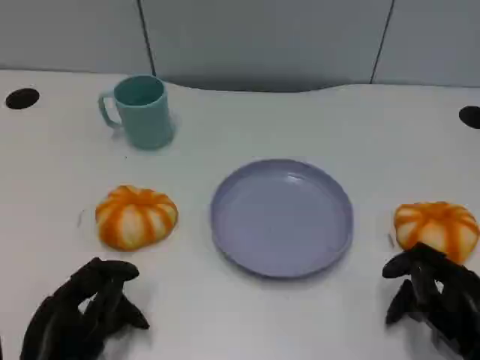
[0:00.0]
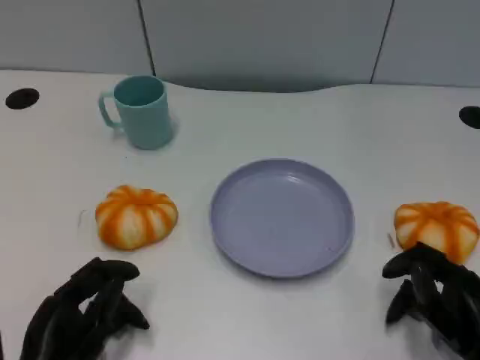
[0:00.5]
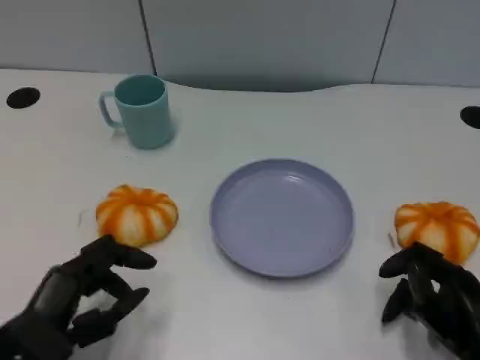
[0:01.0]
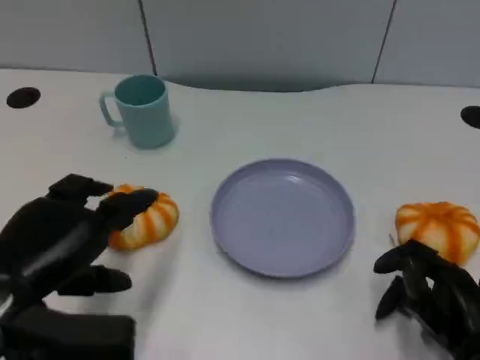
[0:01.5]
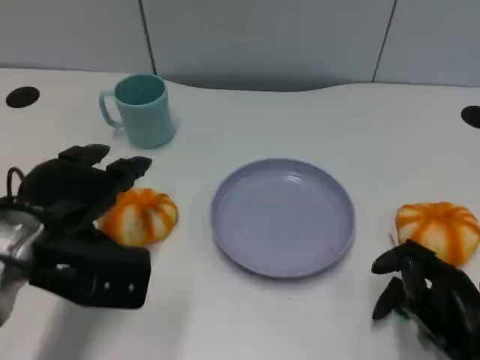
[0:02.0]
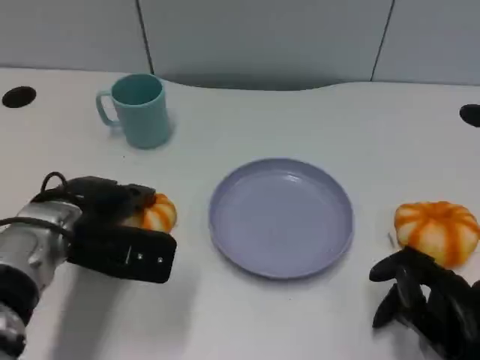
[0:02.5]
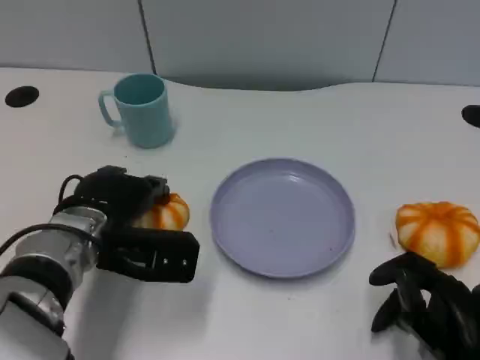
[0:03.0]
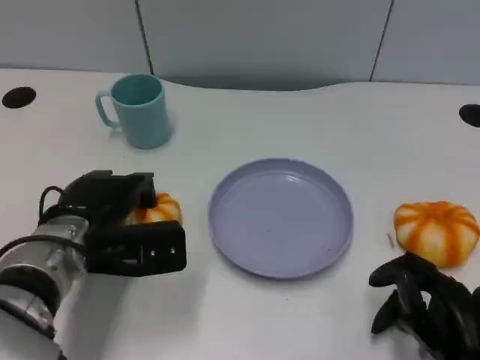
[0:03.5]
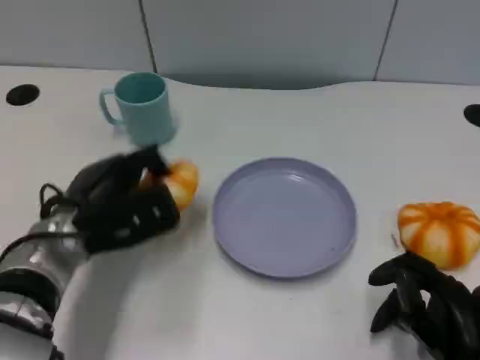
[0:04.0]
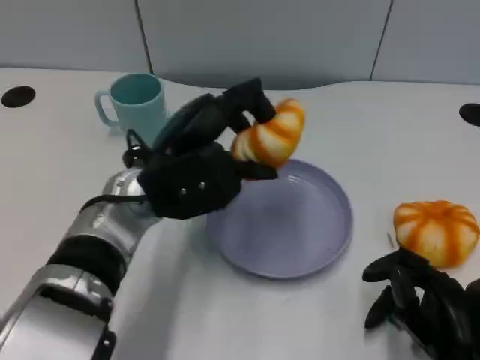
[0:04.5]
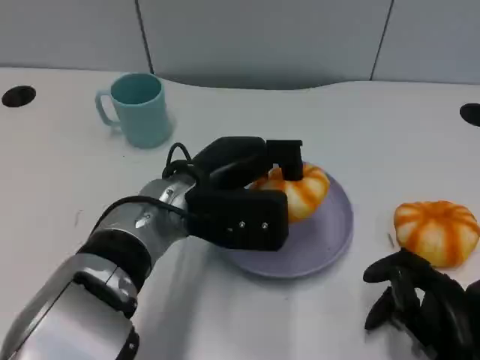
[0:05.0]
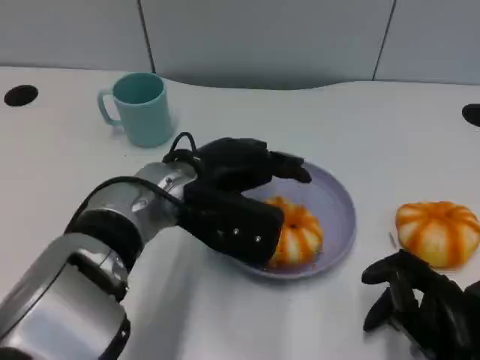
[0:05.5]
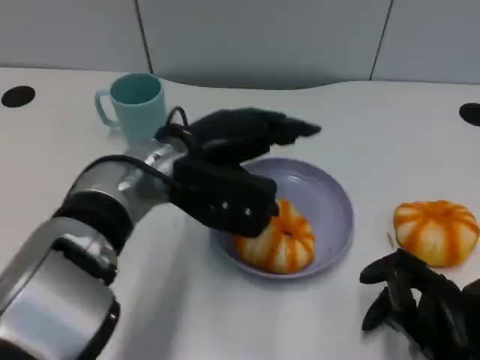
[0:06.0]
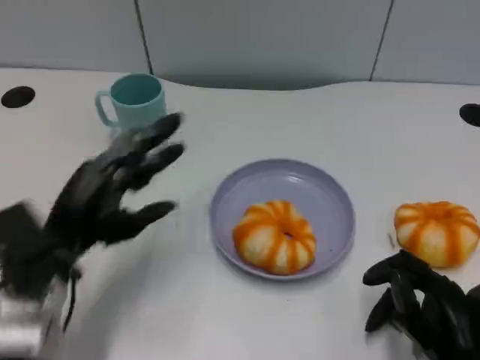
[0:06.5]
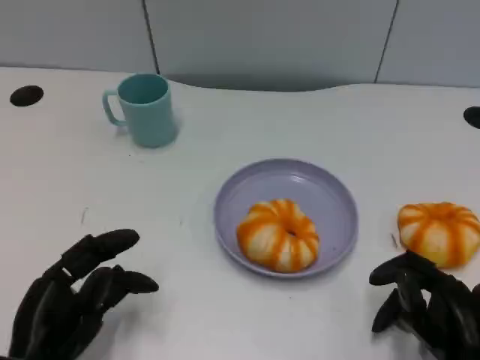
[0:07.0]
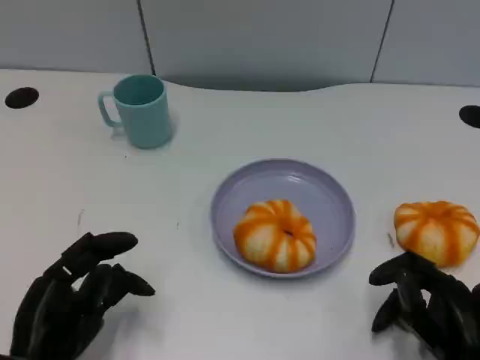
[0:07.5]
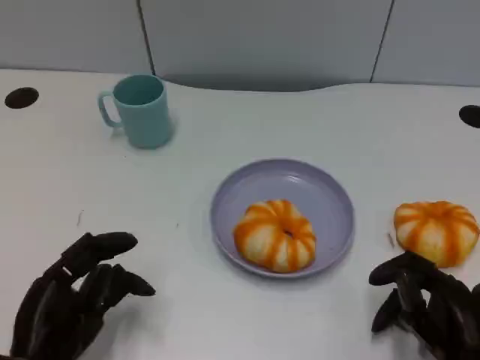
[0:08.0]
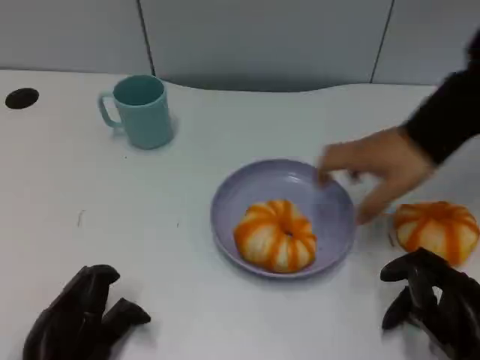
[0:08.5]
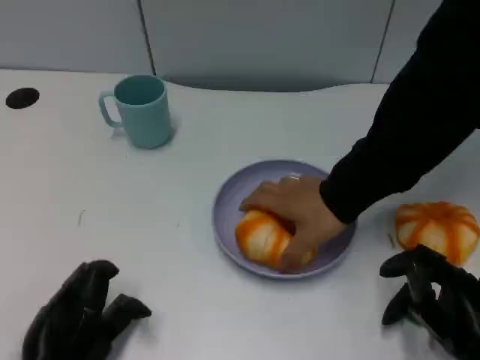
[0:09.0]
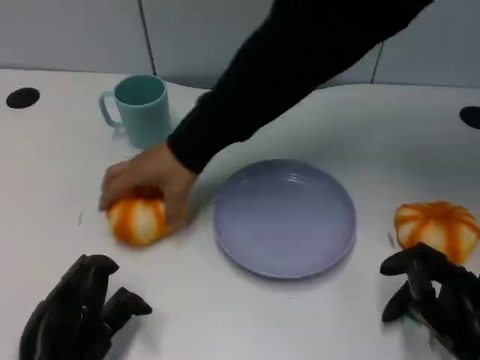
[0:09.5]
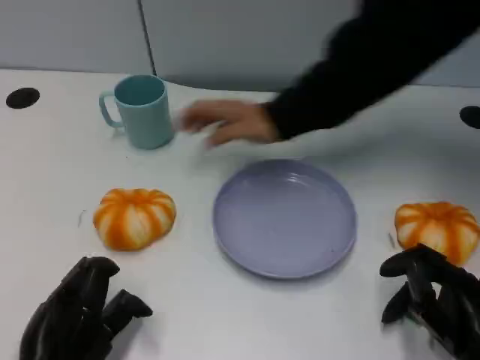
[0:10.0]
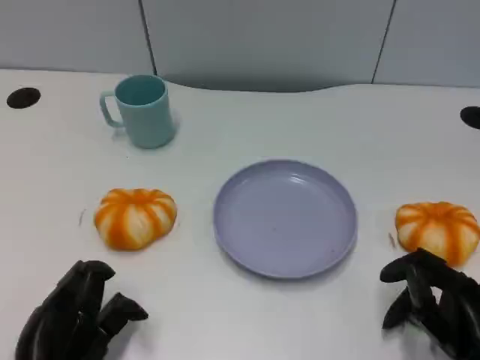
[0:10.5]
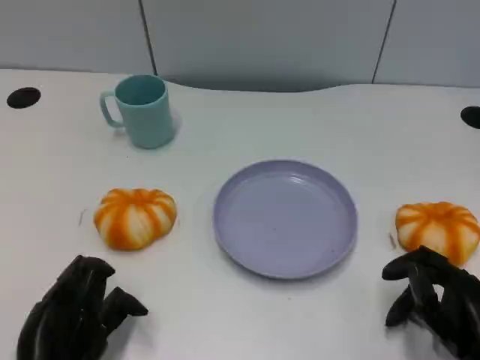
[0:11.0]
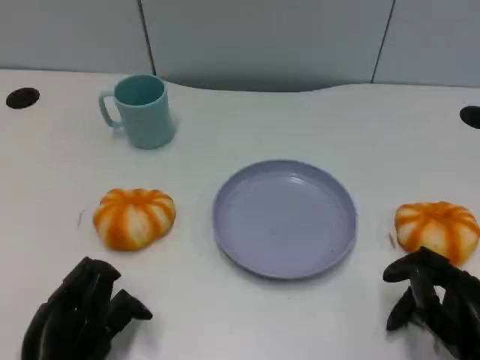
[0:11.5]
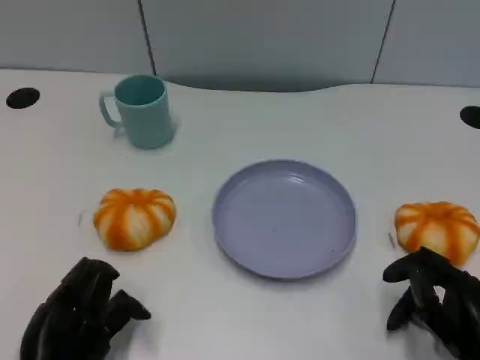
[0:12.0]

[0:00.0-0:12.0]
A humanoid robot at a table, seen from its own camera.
Task of the whole recording: Grasp the bread from the table and place it into the plate.
0:00.0 to 0:02.0: The left hand shifts about 15 cm upward and forward.
0:02.0 to 0:04.0: The left hand ends up some 5 cm from where it was.
0:04.0 to 0:06.0: The left hand heads to the right and upward, covering about 10 cm.
0:06.0 to 0:08.0: The left hand shifts approximately 25 cm backward, to the left and downward.

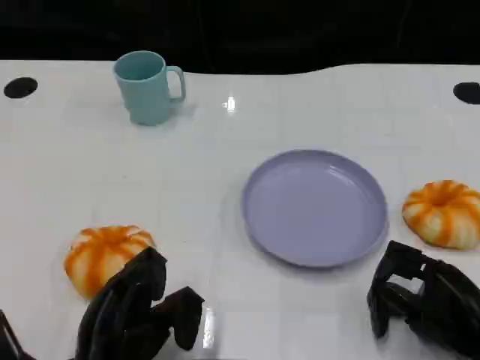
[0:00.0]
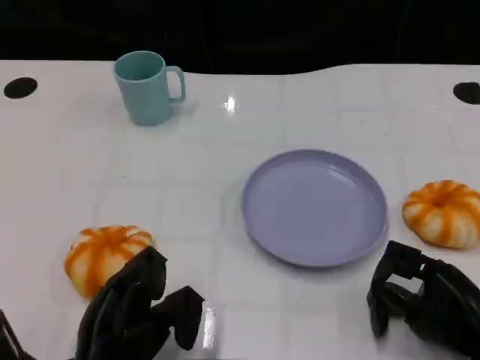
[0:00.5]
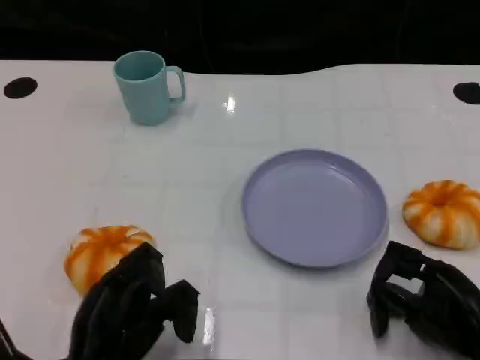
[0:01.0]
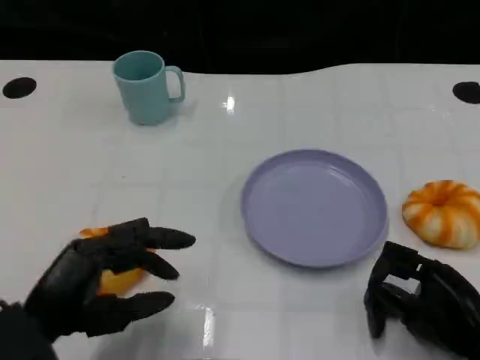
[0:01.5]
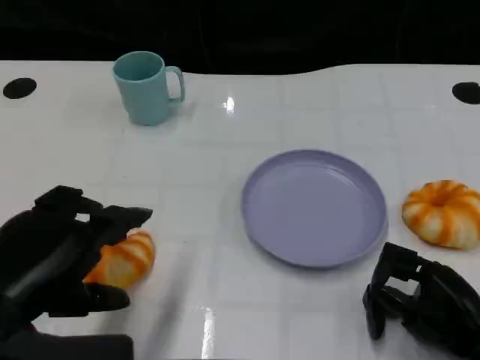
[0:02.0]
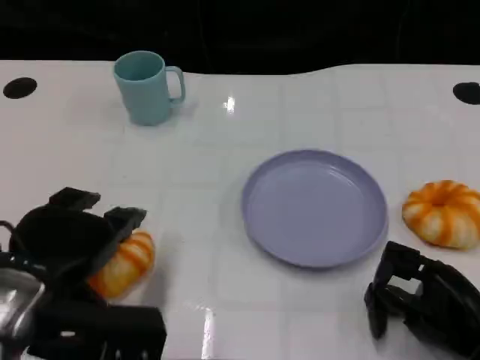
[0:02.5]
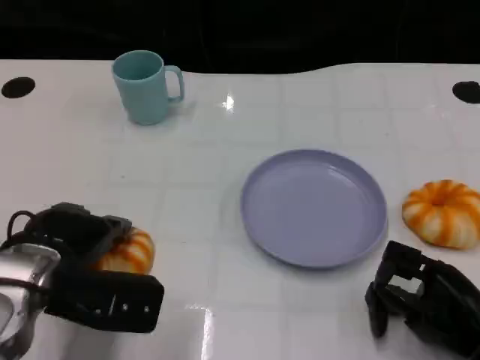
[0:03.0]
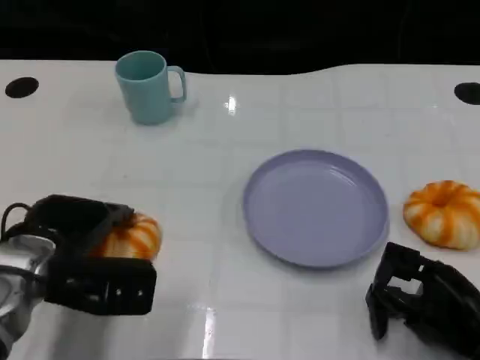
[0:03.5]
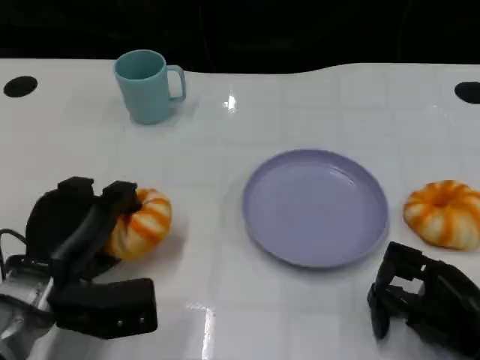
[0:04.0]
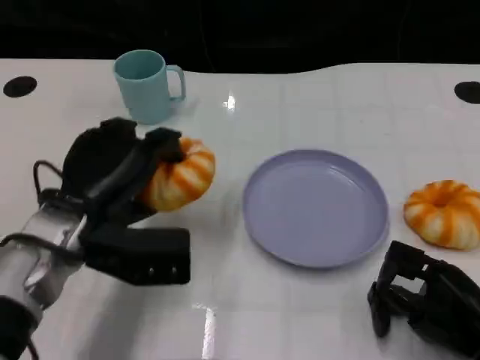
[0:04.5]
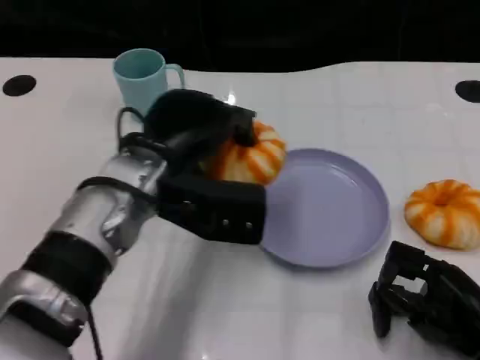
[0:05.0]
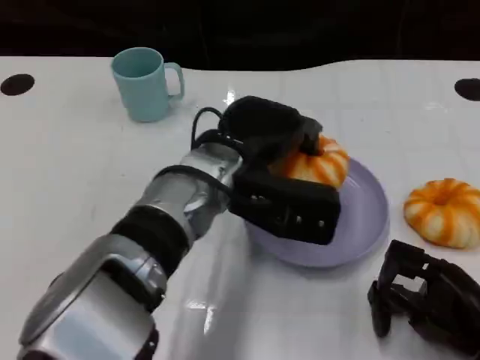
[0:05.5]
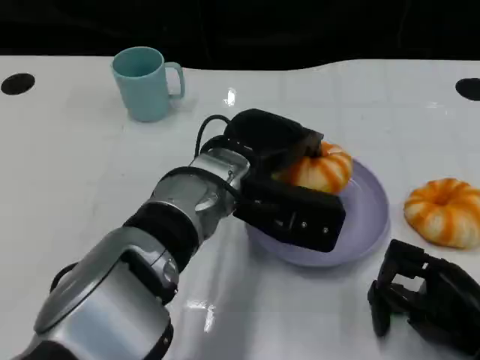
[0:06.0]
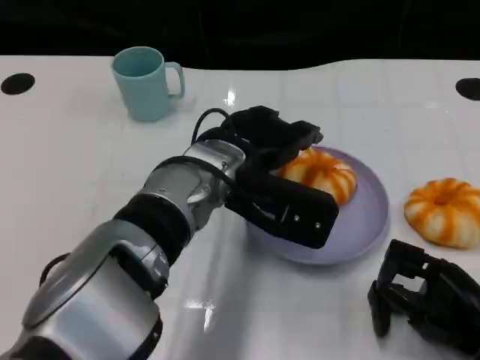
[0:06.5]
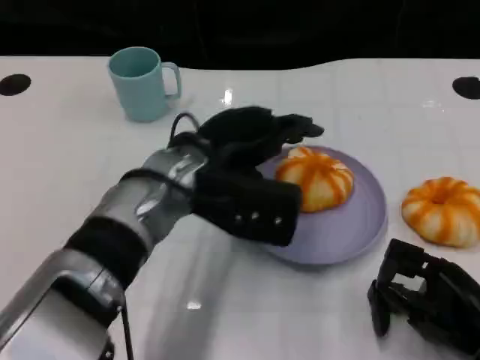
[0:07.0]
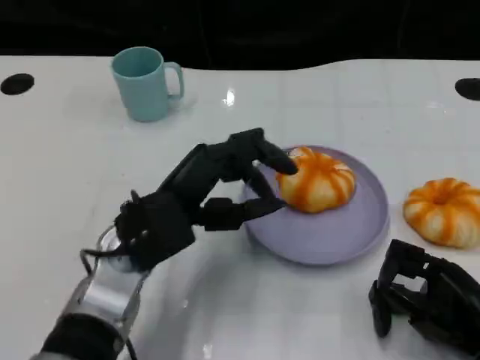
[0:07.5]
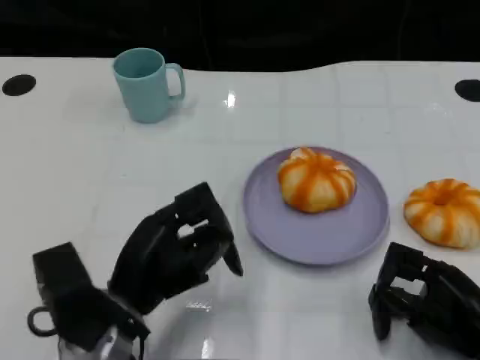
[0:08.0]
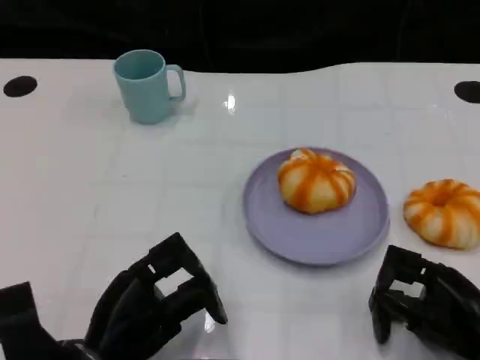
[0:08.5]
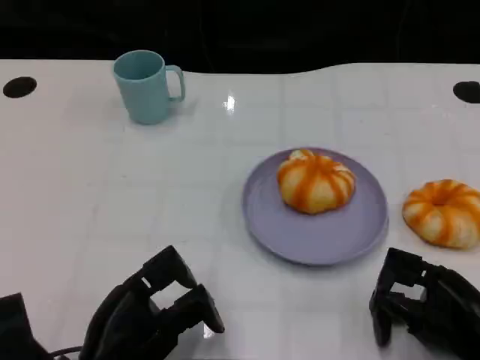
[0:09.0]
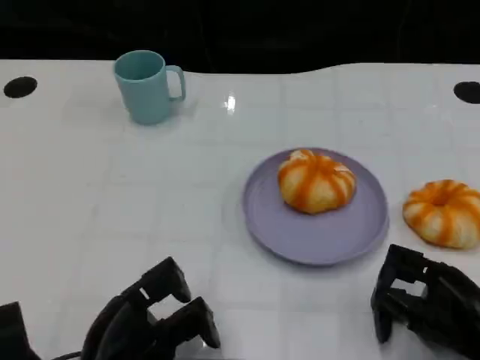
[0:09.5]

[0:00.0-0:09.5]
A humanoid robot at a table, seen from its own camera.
Task of the whole recording: Grasp the bread from the table and place it into the plate.
0:00.0 to 0:02.0: The left hand heads upward, covering about 15 cm.
0:02.0 to 0:04.0: The left hand heads downward and forward, covering about 15 cm.
0:04.0 to 0:05.5: The left hand travels to the right and upward by some 20 cm.
0:05.5 to 0:07.5: The left hand travels to the left by some 10 cm.
0:07.5 to 0:09.5: The left hand shifts about 15 cm backward, downward and to the left.

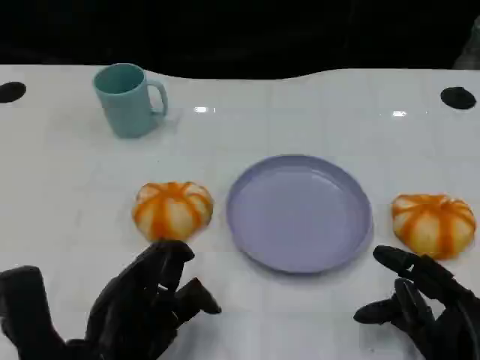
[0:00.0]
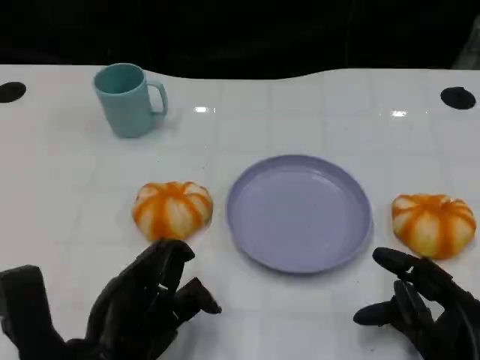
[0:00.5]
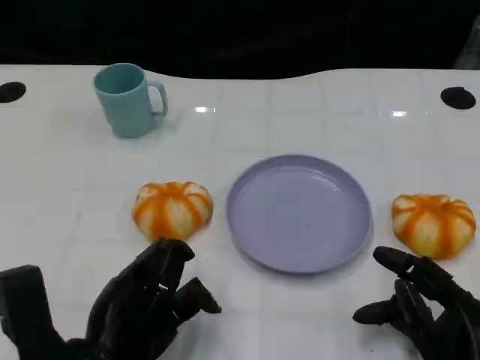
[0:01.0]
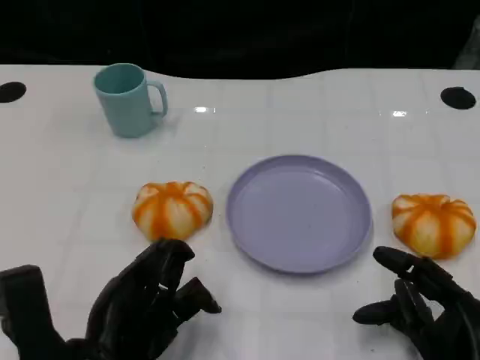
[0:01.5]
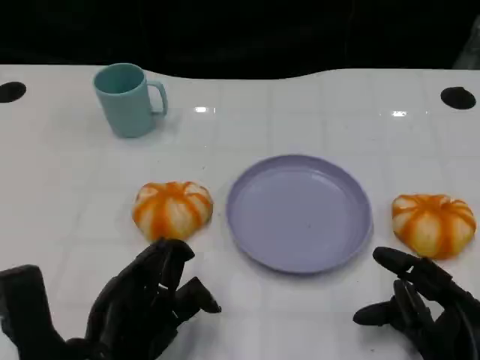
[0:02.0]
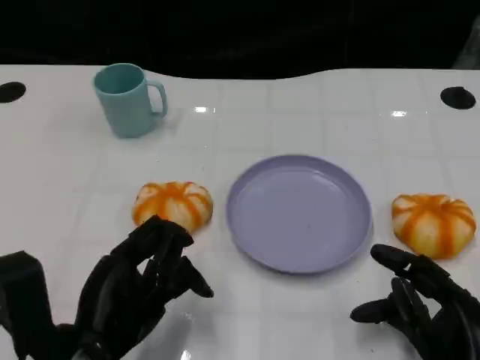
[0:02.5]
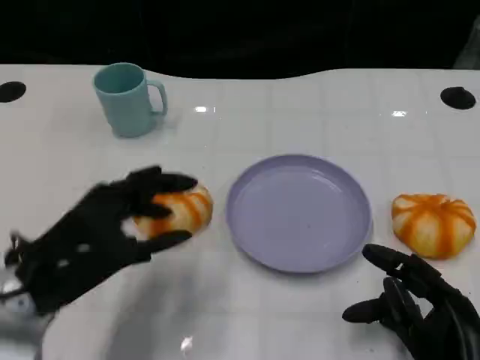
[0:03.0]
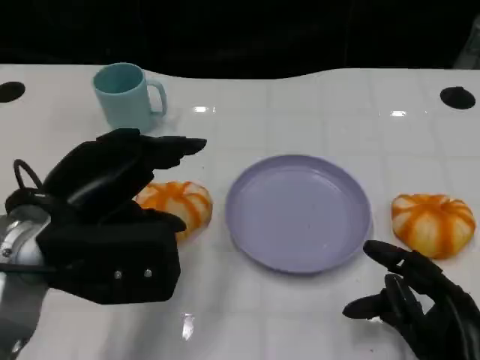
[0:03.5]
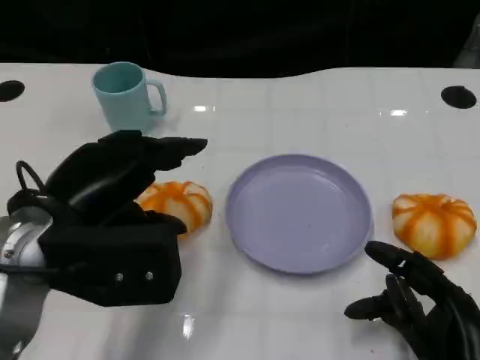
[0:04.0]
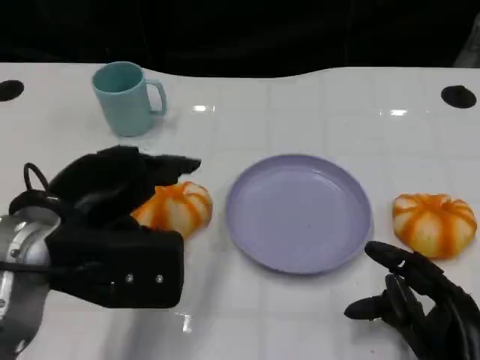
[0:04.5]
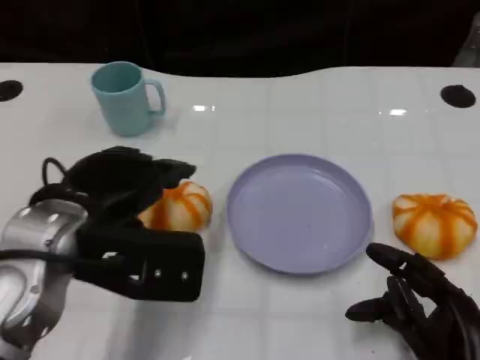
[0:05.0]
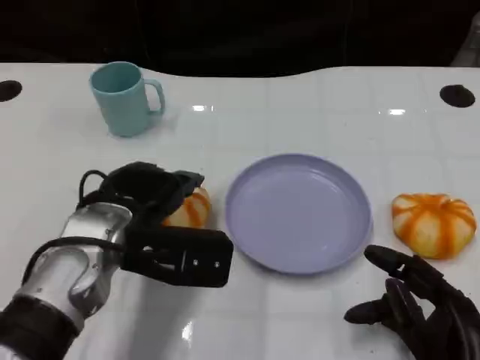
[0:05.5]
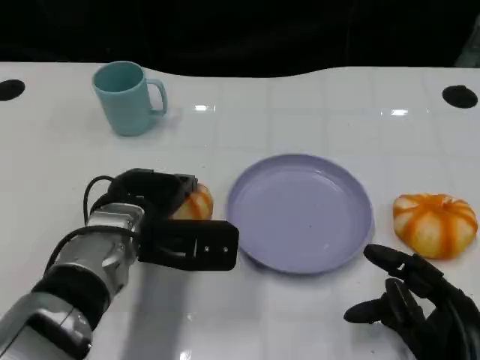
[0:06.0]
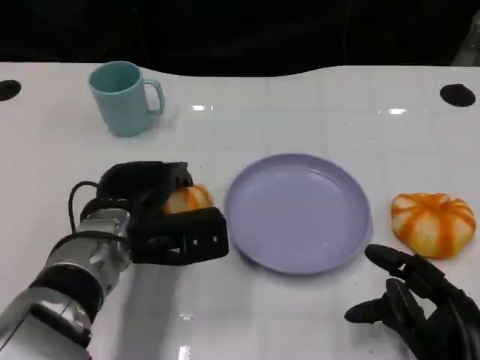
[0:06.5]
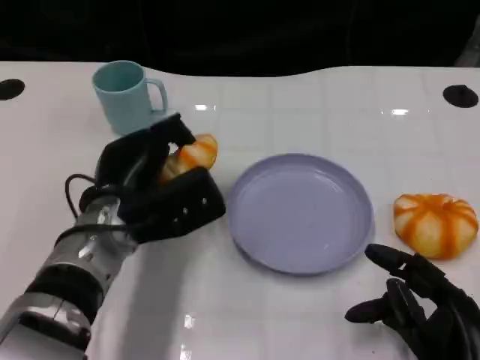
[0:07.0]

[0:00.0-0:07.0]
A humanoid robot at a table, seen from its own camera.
Task of the whole recording: Grasp the bread from the table and place it into the plate.
0:00.0 to 0:02.0: The two hands keep their place.
0:02.0 to 0:03.5: The left hand goes some 15 cm upward and forward.
0:03.5 to 0:05.0: The hands make only small movements.
0:05.0 to 0:07.0: The left hand travels downward and forward by roughly 10 cm.
